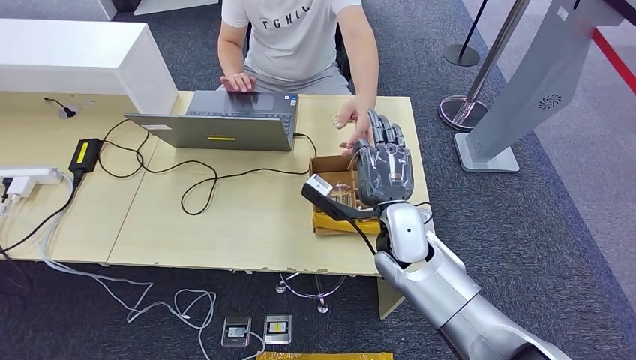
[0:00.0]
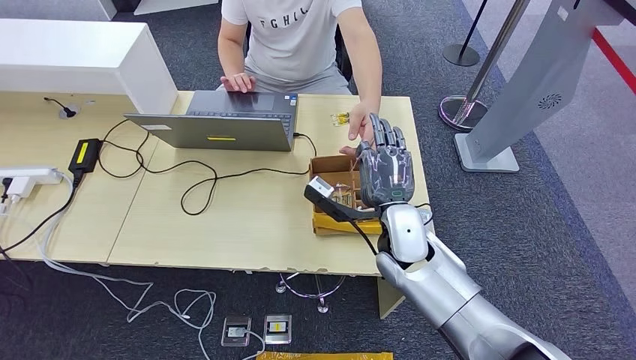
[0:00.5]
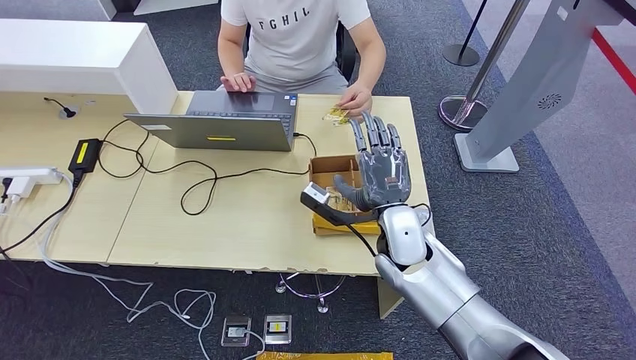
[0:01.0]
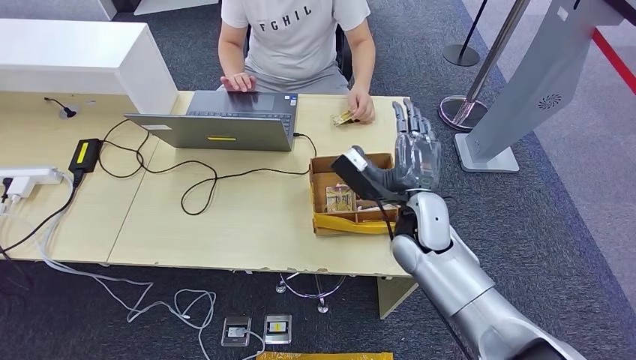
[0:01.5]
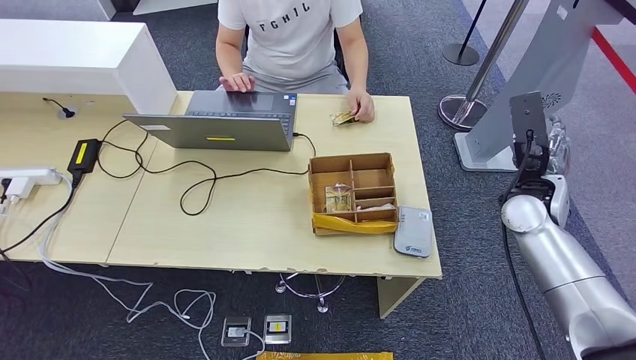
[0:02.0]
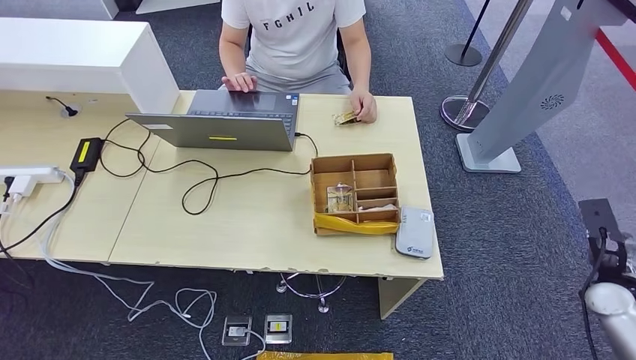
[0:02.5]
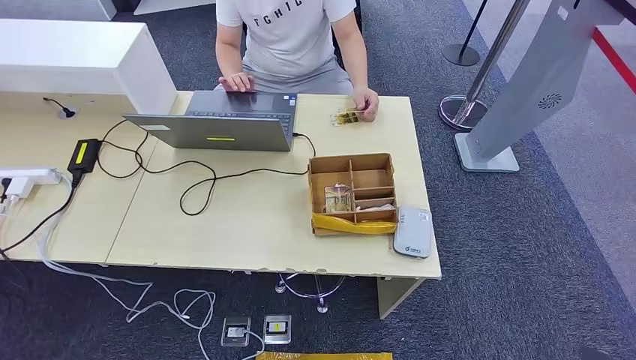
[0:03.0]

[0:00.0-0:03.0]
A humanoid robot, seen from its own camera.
Step, 0:01.0 to 0:02.5: Hand the room key to the person.
0:00.0 to 0:01.5: The hands stay close to where they were, moving slightly.
0:01.5 to 0:03.0: The right hand moves to the right, backward and downward, about 50 cm.

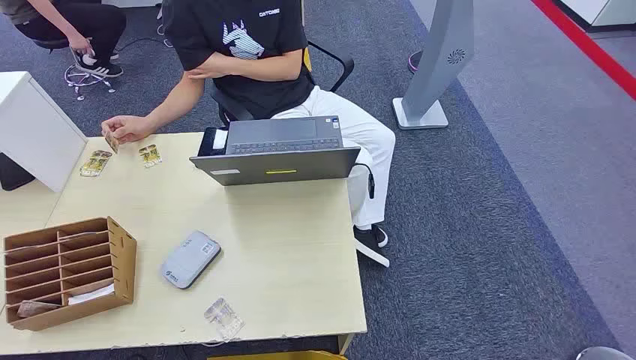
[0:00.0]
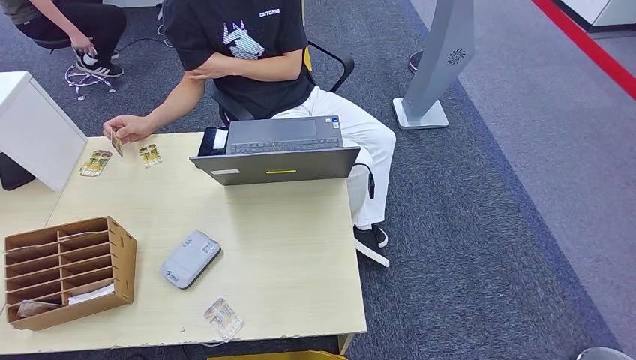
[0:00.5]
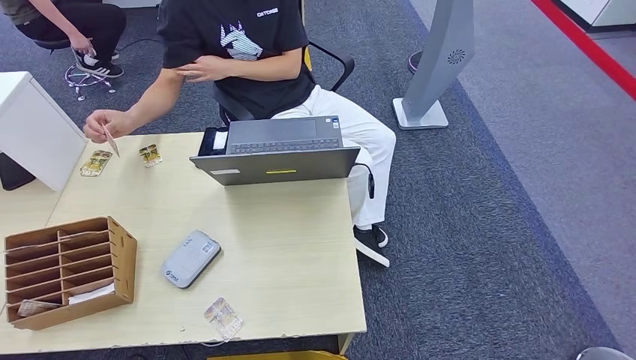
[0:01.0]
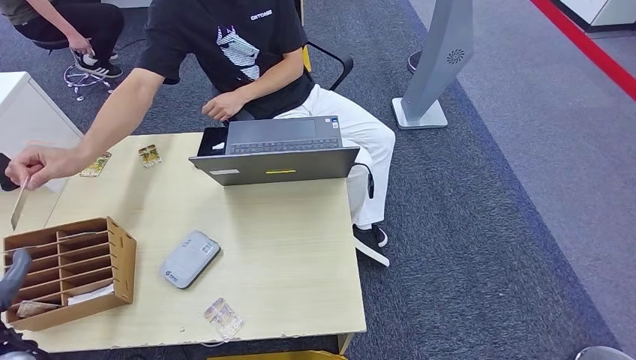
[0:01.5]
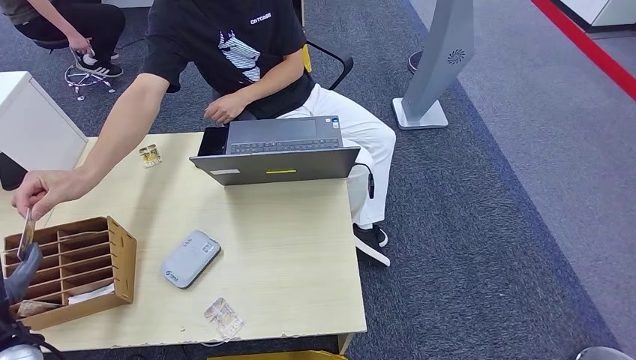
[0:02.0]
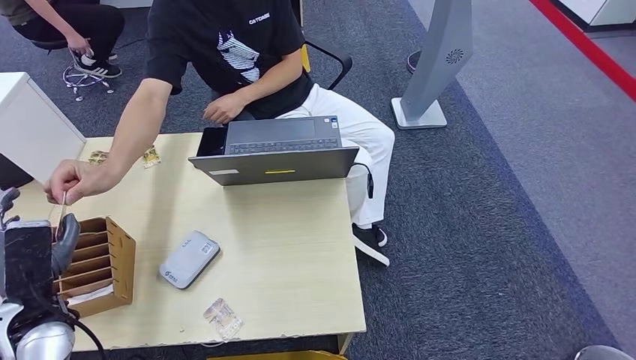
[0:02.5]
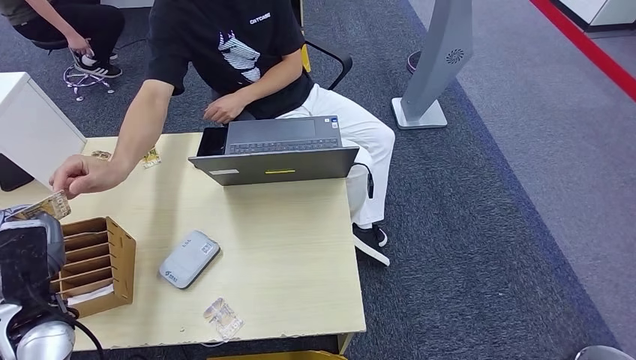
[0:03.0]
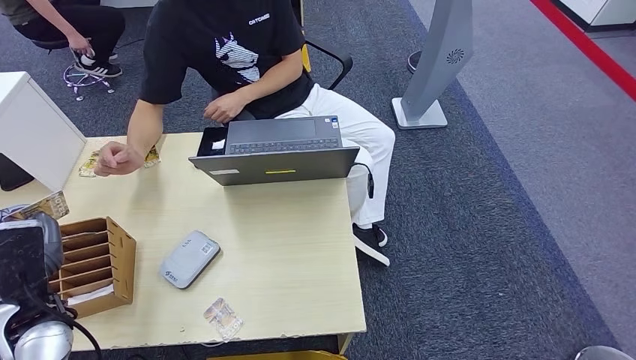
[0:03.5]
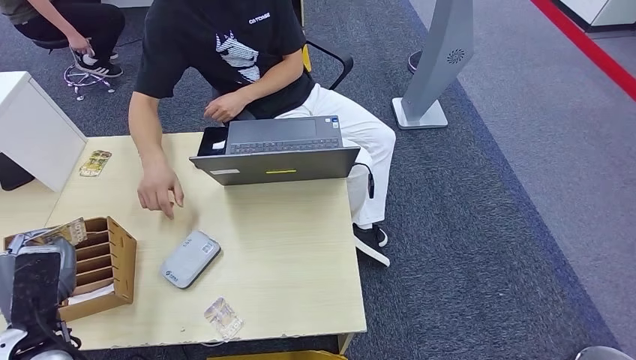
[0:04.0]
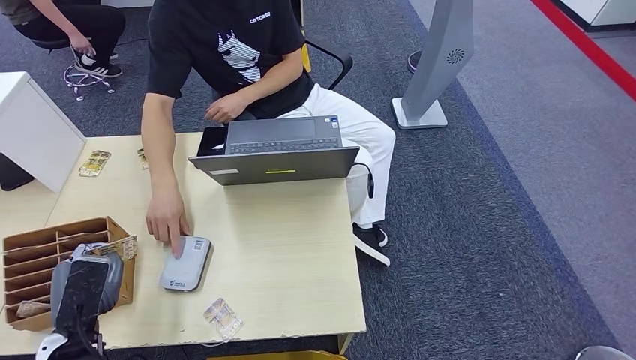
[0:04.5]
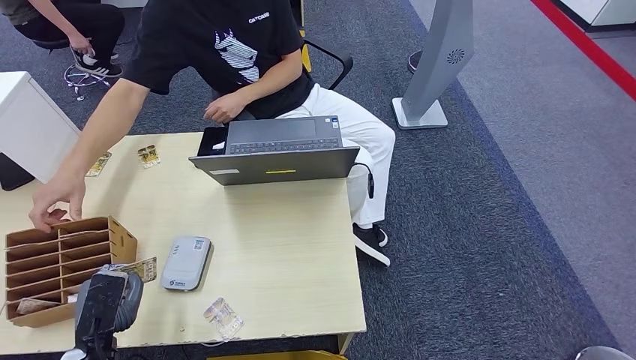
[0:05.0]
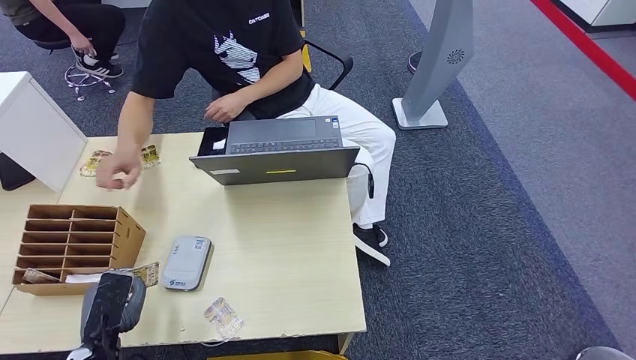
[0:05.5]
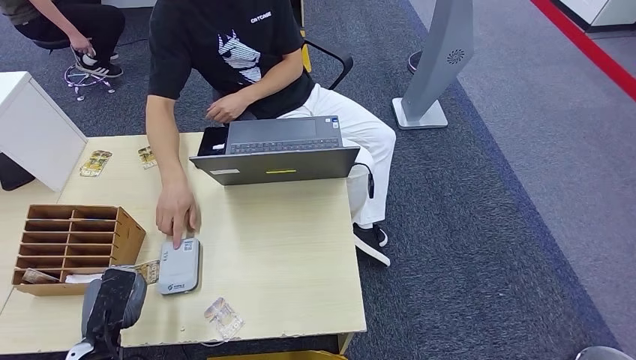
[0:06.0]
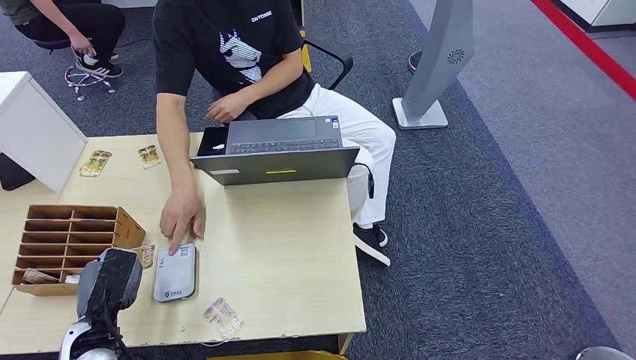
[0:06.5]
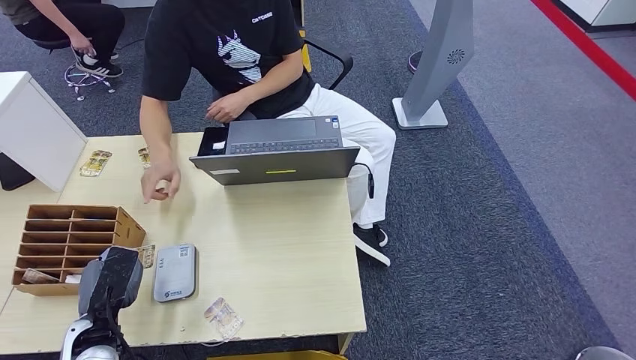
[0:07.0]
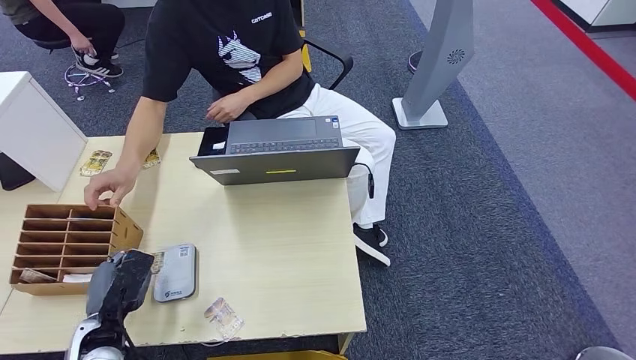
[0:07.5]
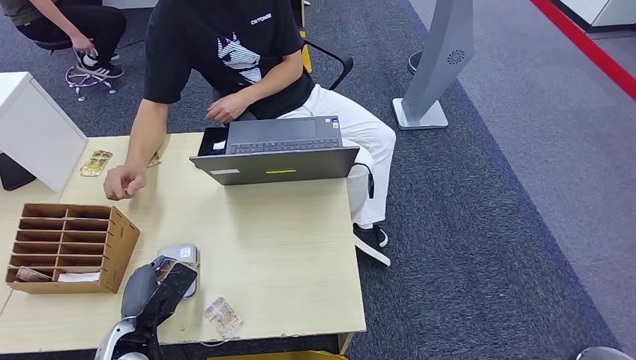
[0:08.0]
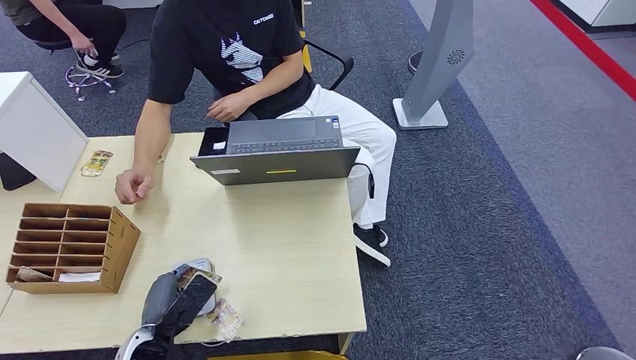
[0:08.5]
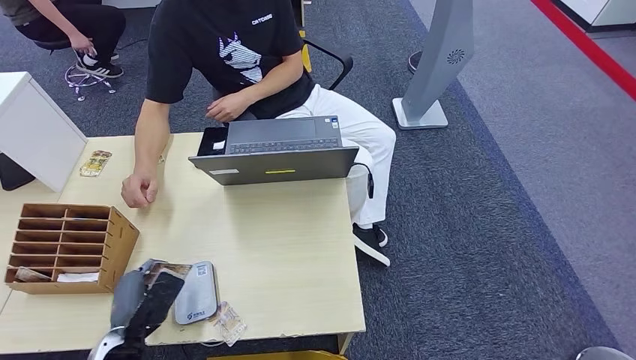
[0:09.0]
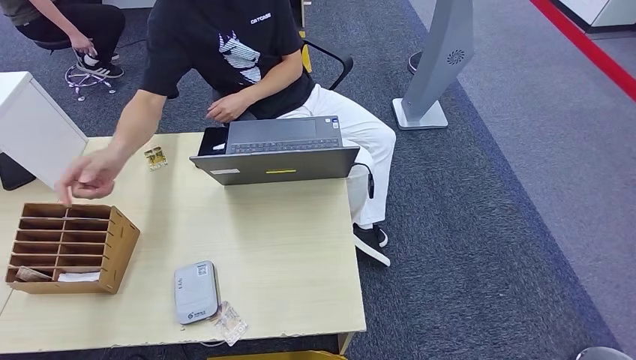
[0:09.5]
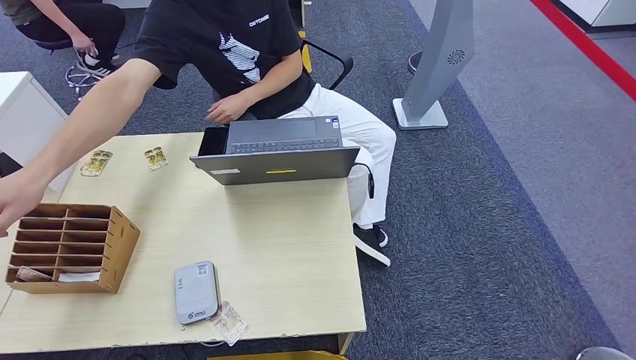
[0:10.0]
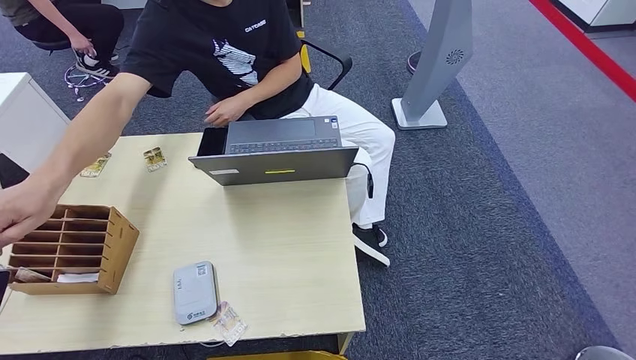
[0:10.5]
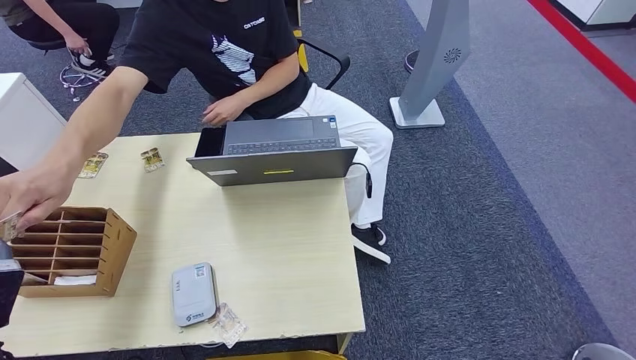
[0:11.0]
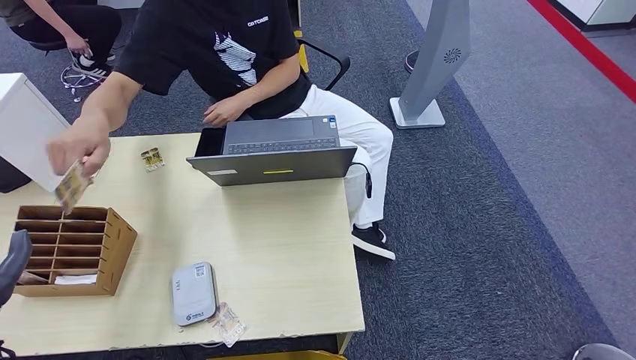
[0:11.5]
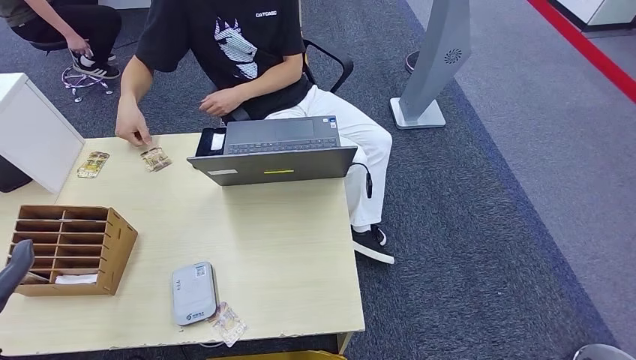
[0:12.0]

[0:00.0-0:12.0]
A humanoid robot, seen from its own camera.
Step, 0:00.0 to 0:02.5: Take the ID card from the person's hand.
Step, 0:03.0 to 0:09.0: Place the ID card on the card reader.
Step, 0:10.0 to 0:11.0: Hand the ID card to the person.
0:02.0 to 0:04.0: The left hand shifts by approximately 5 cm.
0:04.0 to 0:06.0: The left hand shifts roughly 5 cm downward.
0:08.0 to 0:10.0: The left hand travels to the left and upward by approximately 20 cm.
0:10.0 to 0:12.0: The left hand moves to the right, about 10 cm.

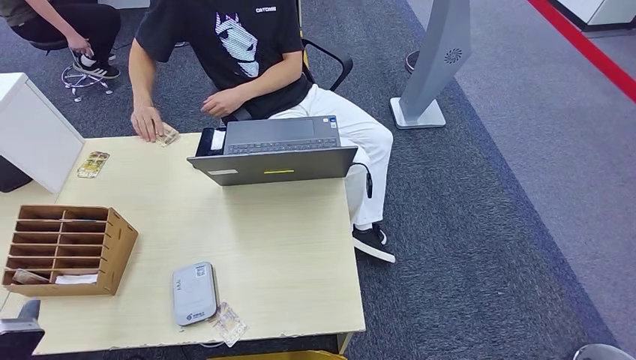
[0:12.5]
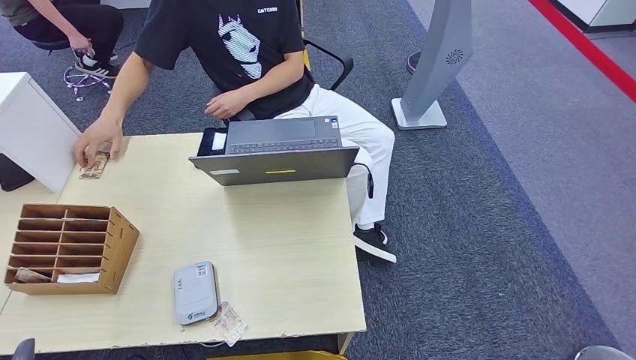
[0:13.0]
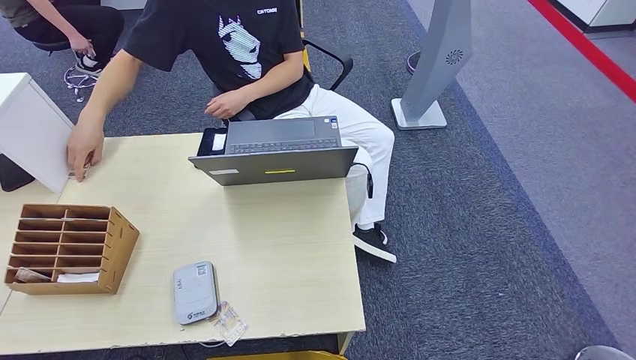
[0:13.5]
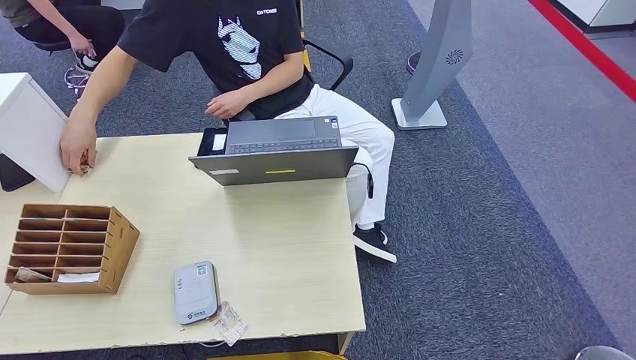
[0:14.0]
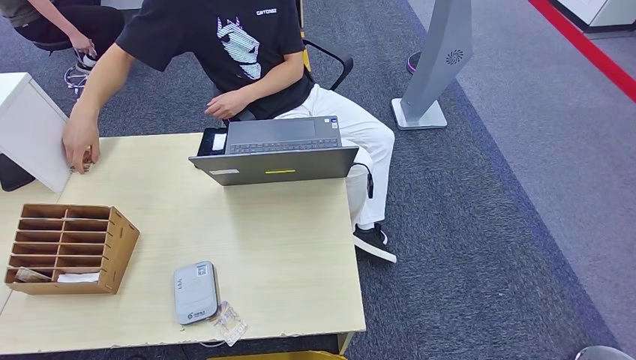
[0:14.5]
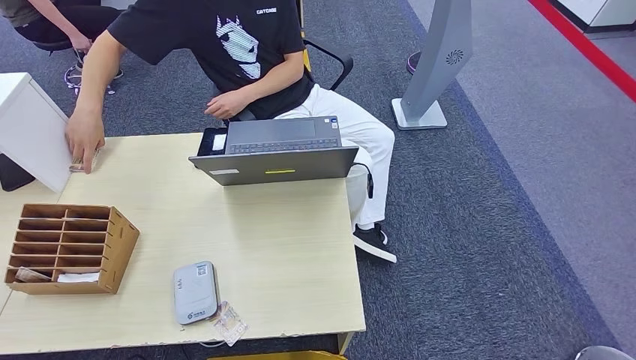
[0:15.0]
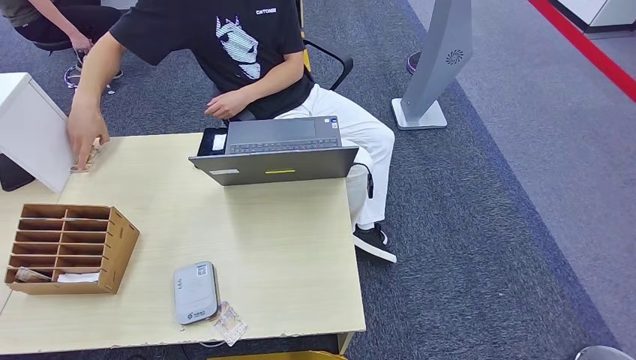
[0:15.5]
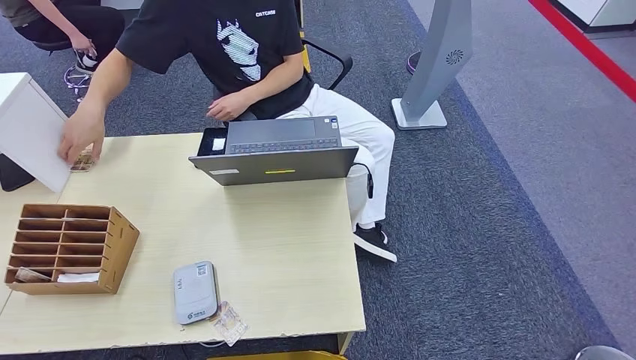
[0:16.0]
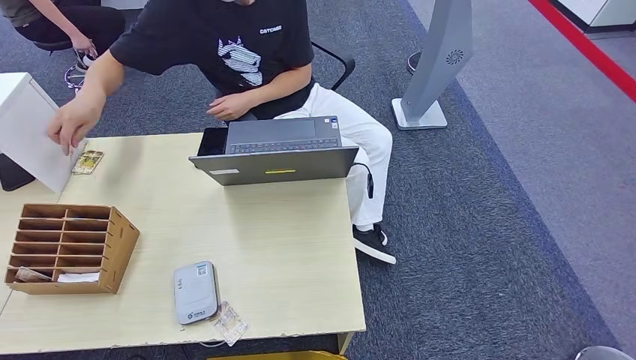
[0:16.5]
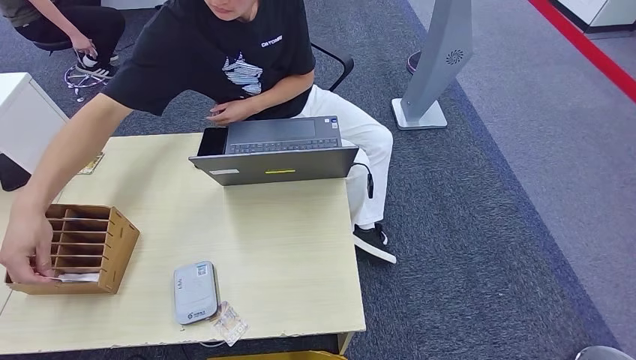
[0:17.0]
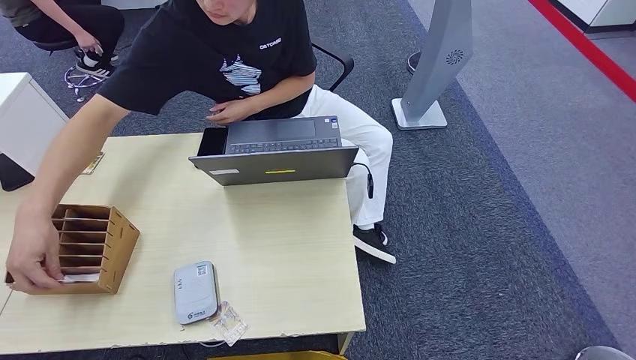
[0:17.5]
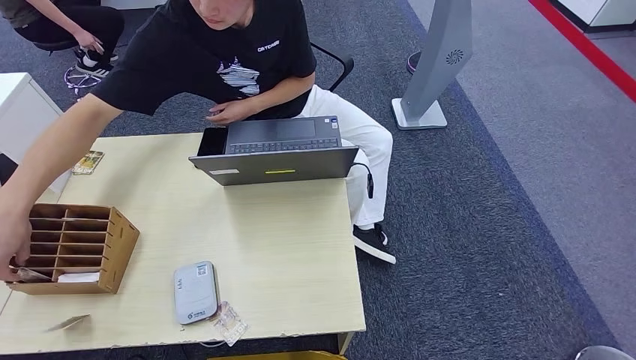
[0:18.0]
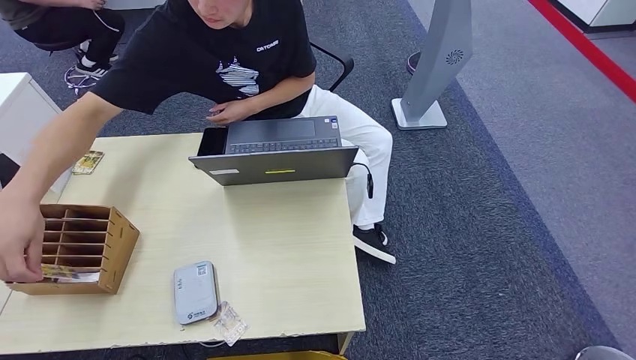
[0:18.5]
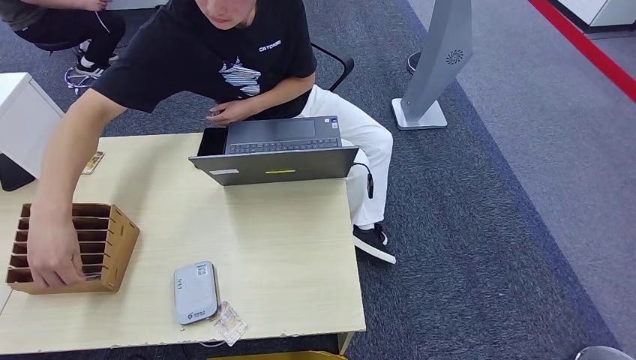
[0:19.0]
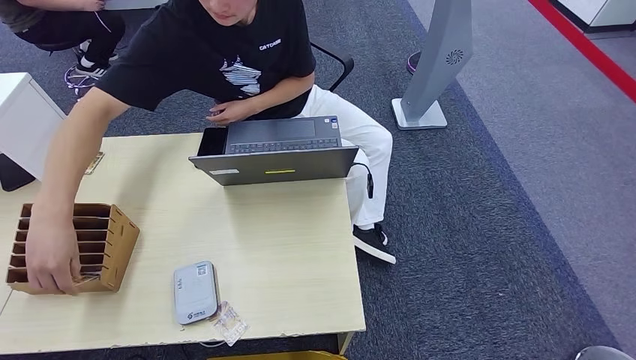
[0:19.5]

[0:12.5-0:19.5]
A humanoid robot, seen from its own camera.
0:12.5 to 0:14.5: The left hand travels backward by roughly 10 cm.
0:14.5 to 0:17.5: Neither hand changes place.
0:17.5 to 0:19.5: The hands stay close to where they were, moving slightly.
